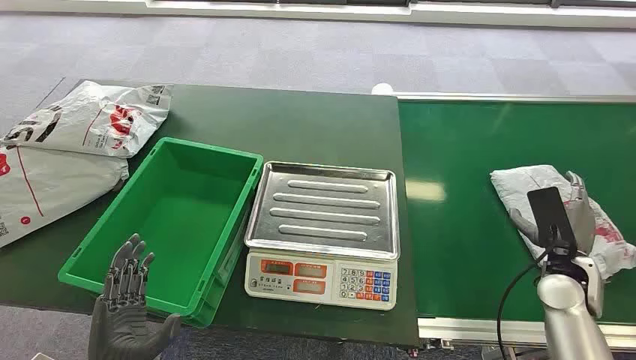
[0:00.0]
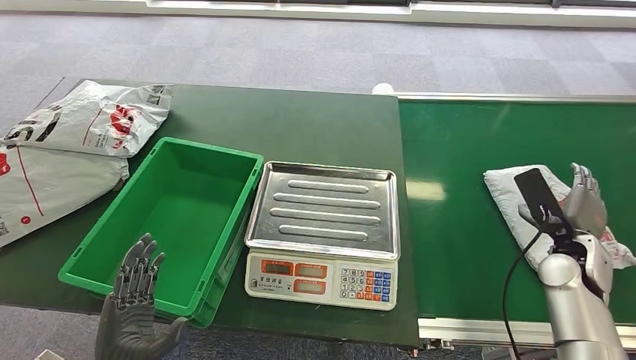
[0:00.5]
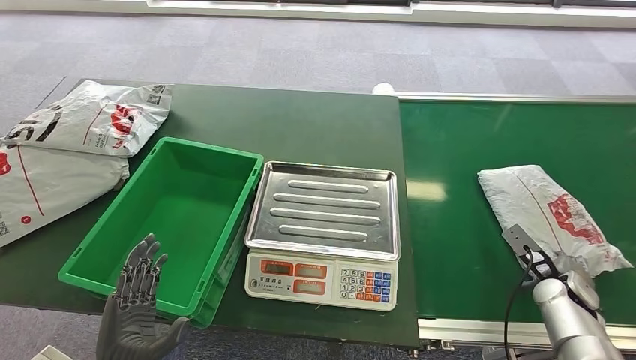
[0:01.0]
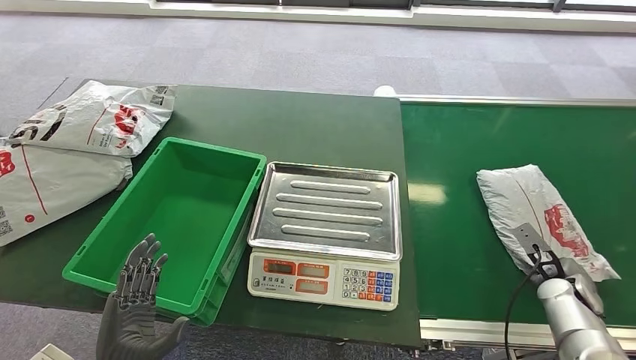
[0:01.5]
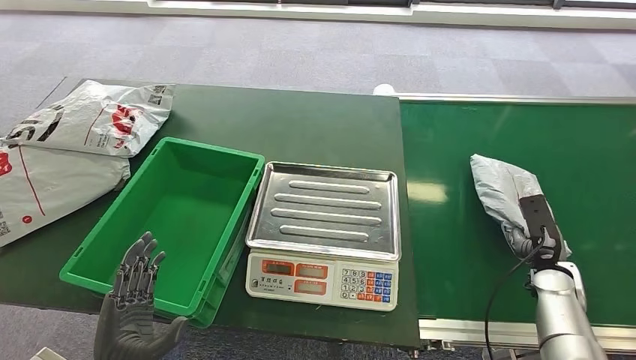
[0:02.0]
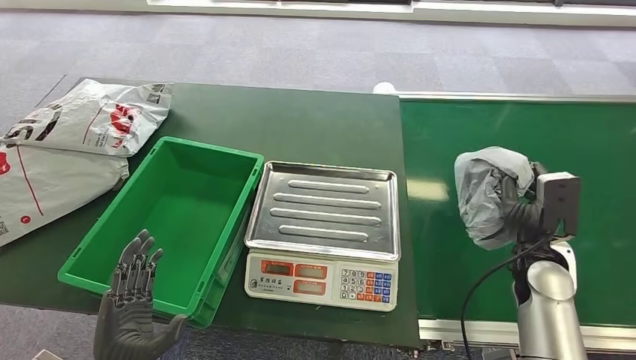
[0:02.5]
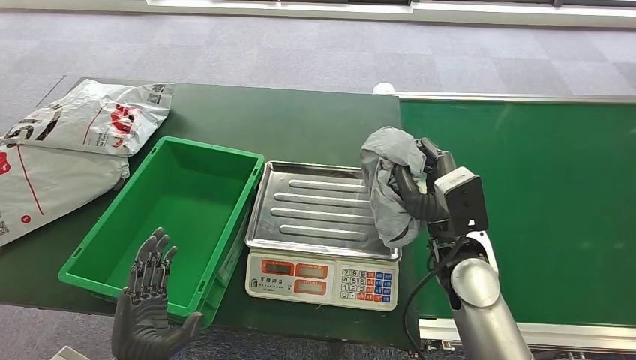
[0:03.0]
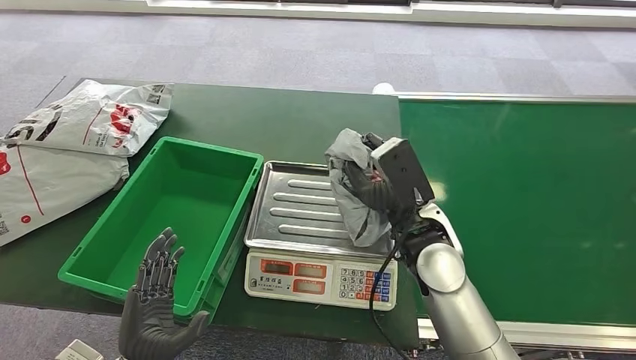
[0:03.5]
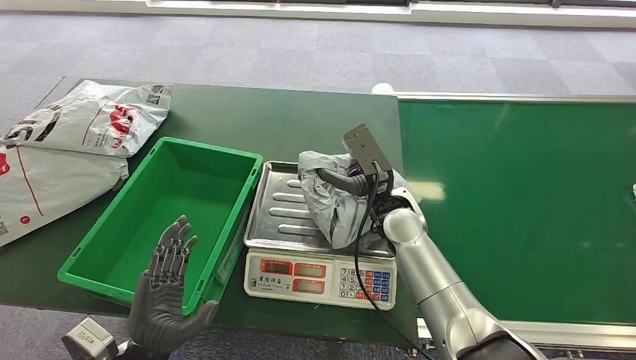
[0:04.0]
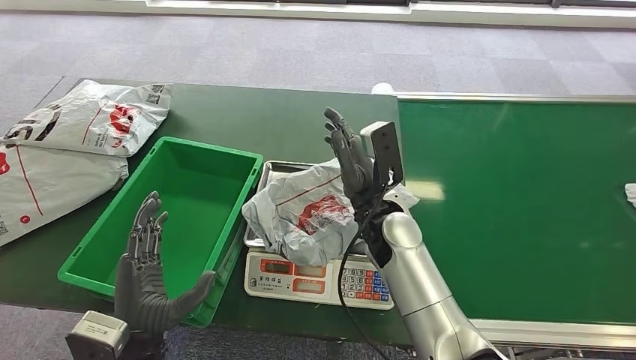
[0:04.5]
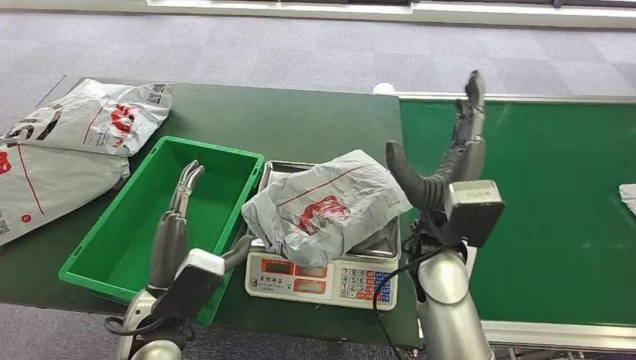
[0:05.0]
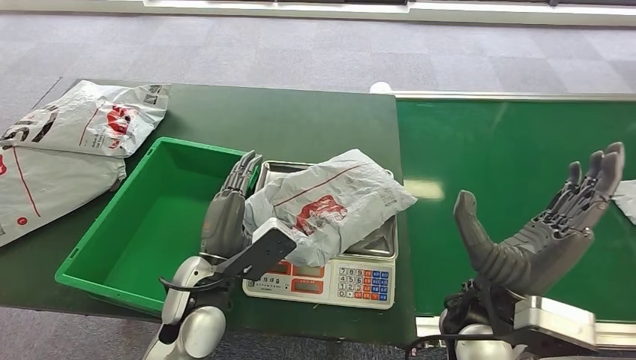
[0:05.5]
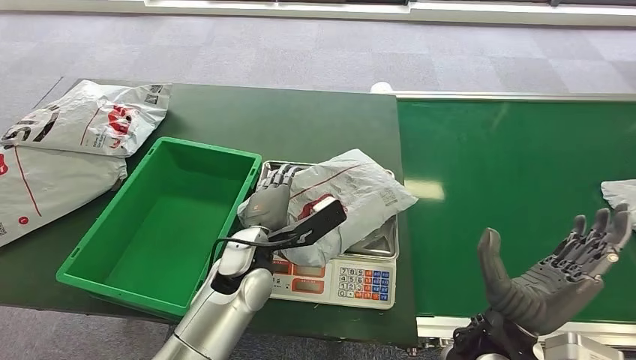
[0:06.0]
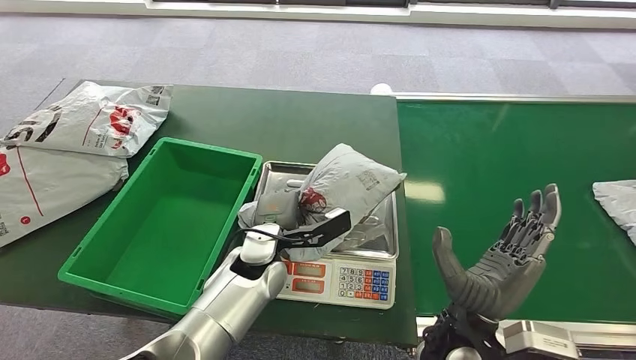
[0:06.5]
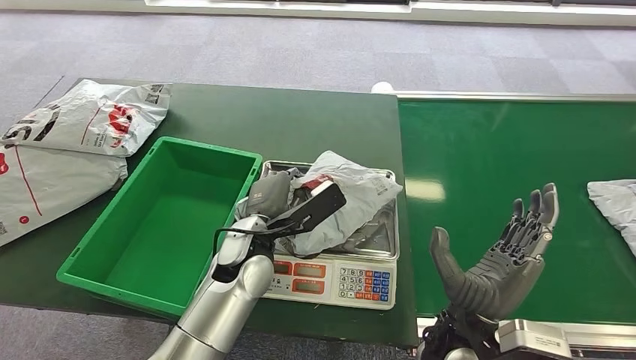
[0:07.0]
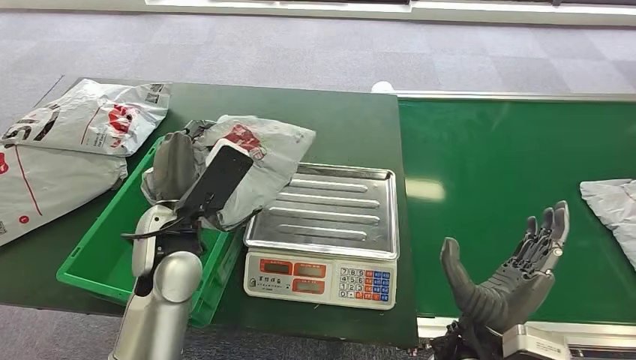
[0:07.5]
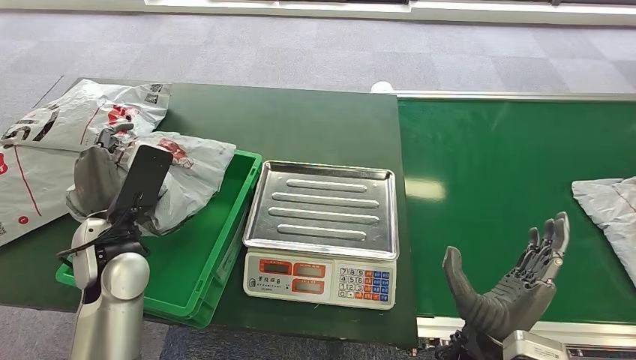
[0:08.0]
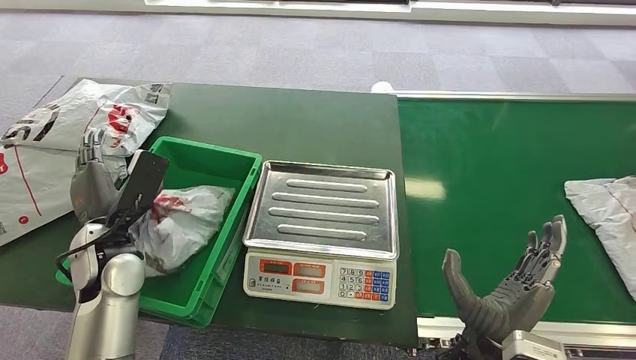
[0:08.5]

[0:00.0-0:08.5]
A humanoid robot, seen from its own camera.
Step, 0:00.0 to 0:03.0: Pick up the package from the conveyor belt.
Step, 0:03.5 to 0:04.5: Place the package onto the inbound machine.
Step, 0:05.0 to 0:07.0: Pick up the package from the inbound machine.
Step, 0:07.5 to 0:08.5: Place the package into the parcel locker.

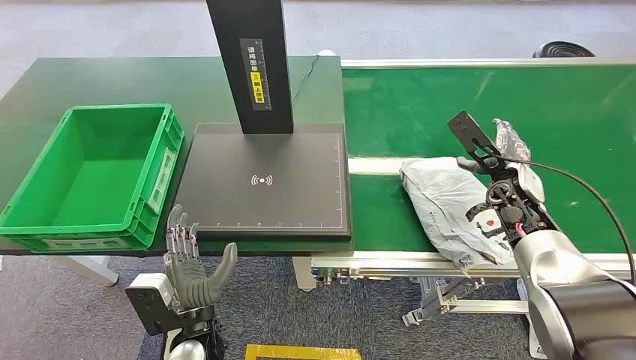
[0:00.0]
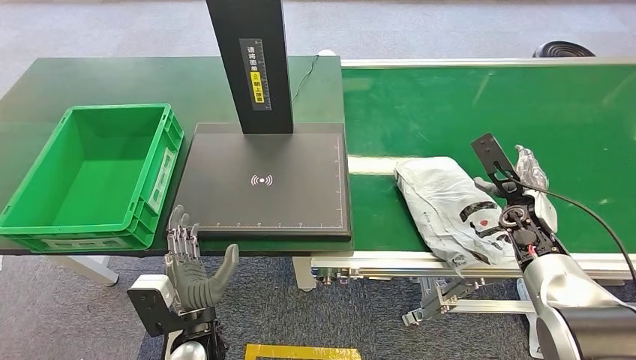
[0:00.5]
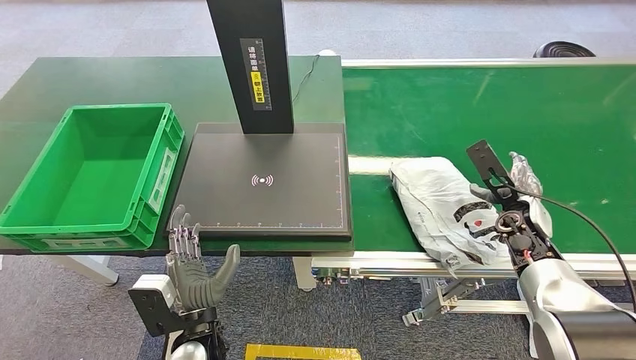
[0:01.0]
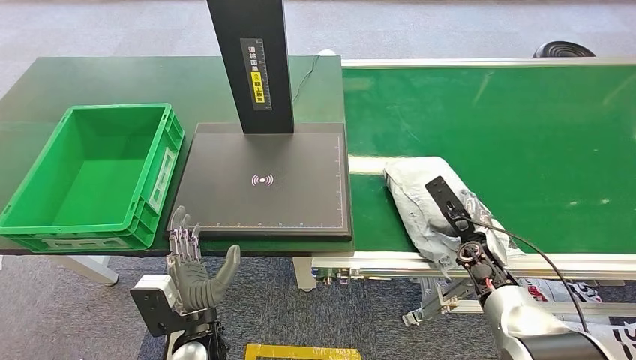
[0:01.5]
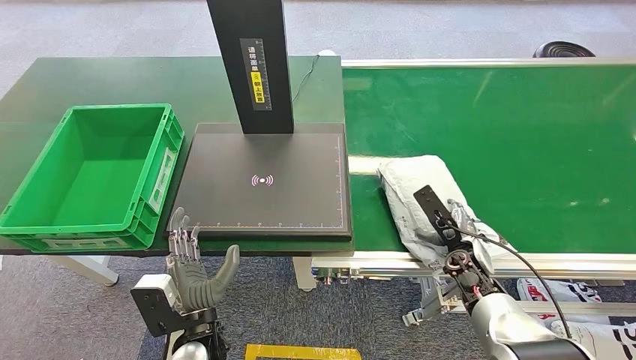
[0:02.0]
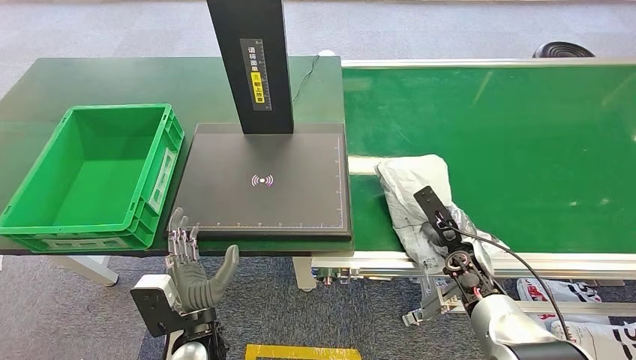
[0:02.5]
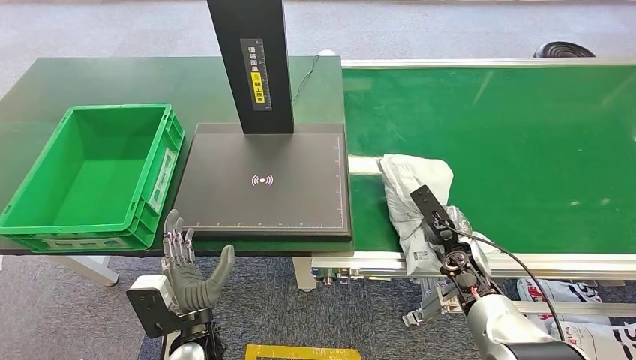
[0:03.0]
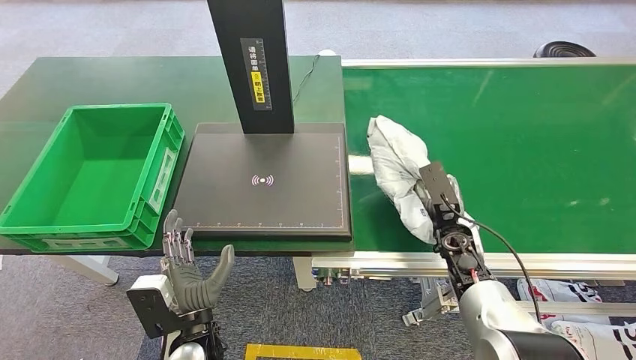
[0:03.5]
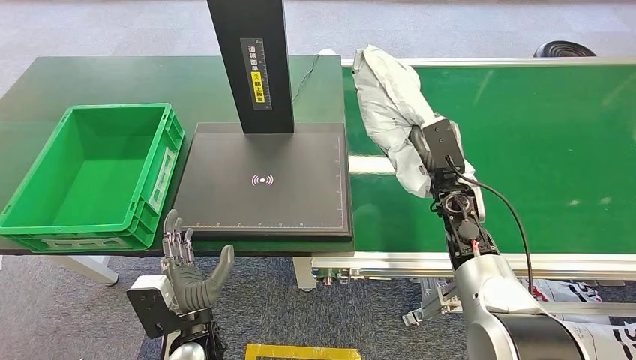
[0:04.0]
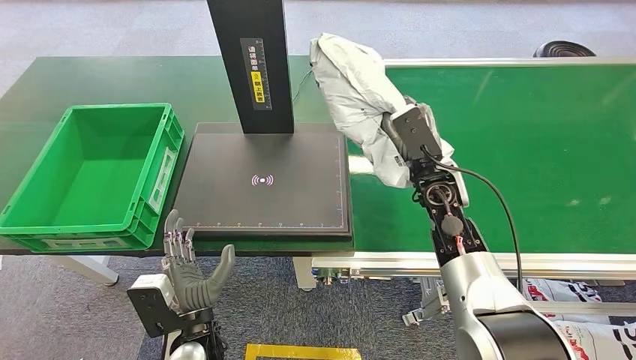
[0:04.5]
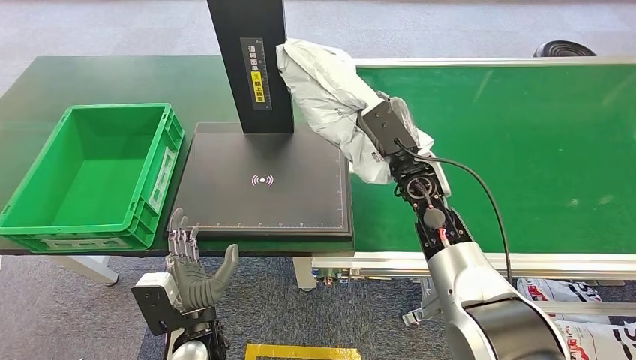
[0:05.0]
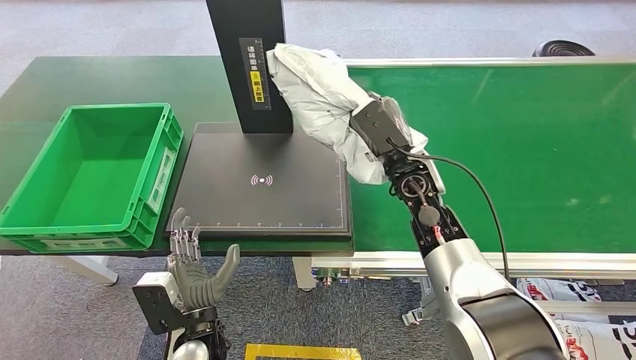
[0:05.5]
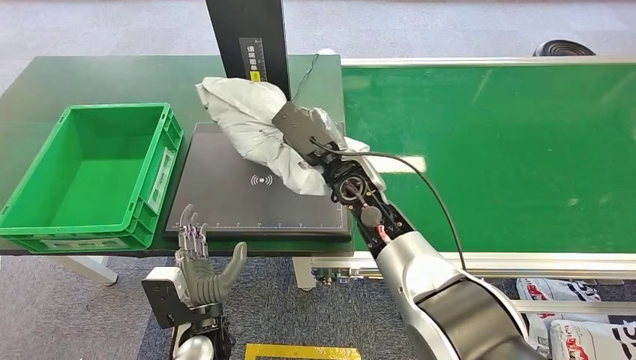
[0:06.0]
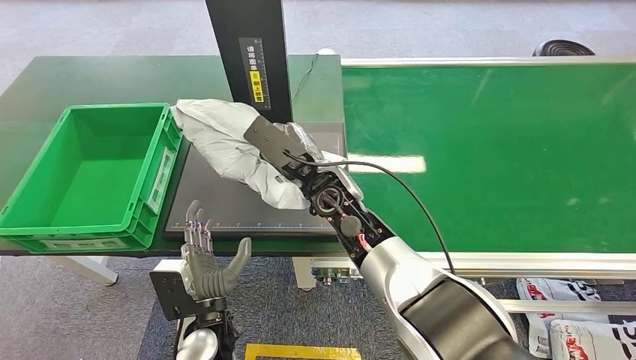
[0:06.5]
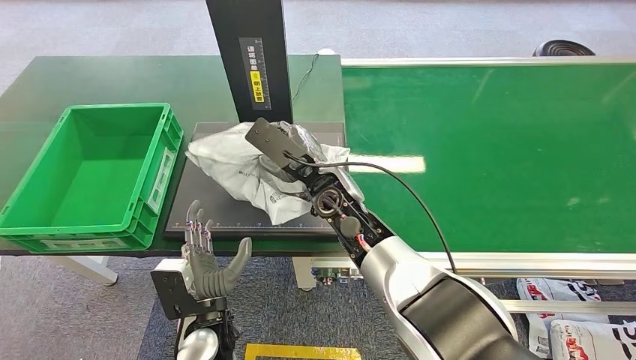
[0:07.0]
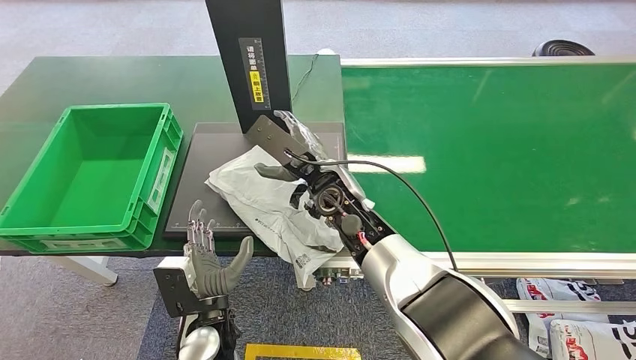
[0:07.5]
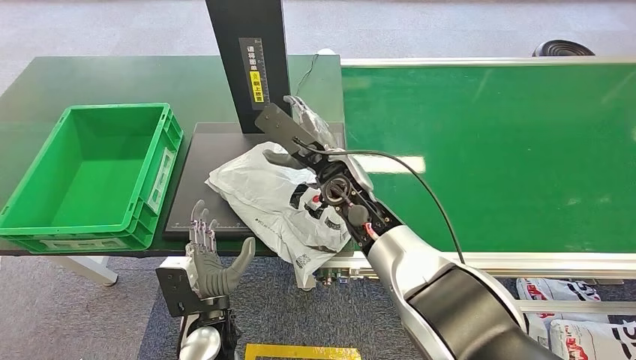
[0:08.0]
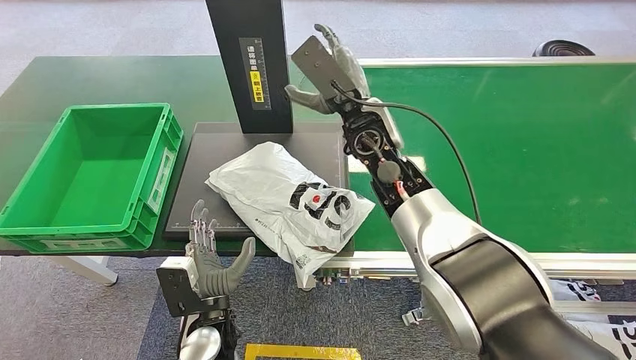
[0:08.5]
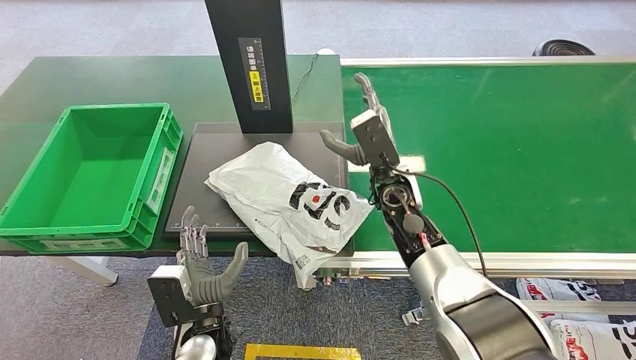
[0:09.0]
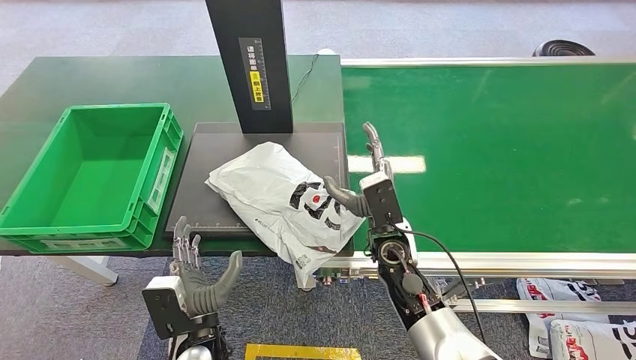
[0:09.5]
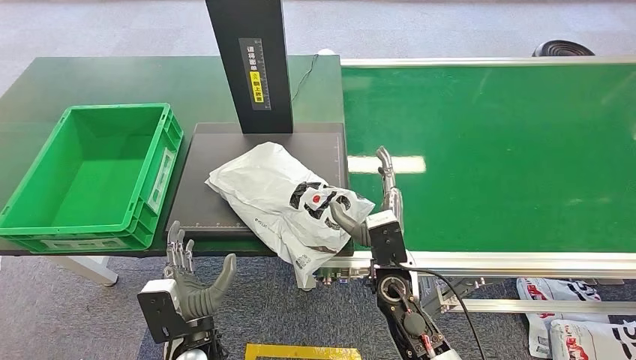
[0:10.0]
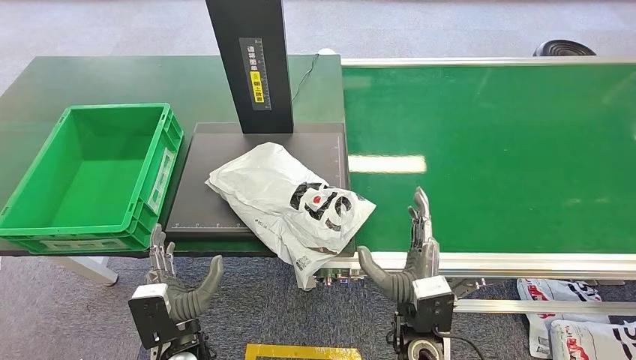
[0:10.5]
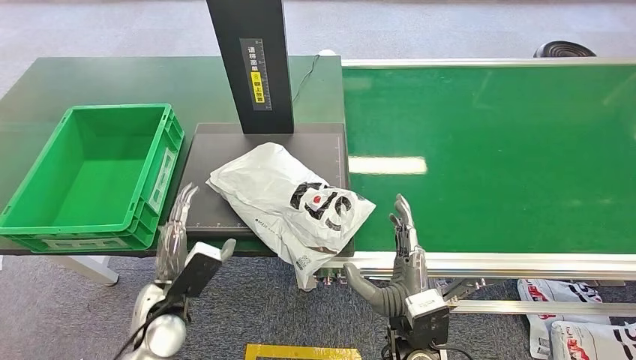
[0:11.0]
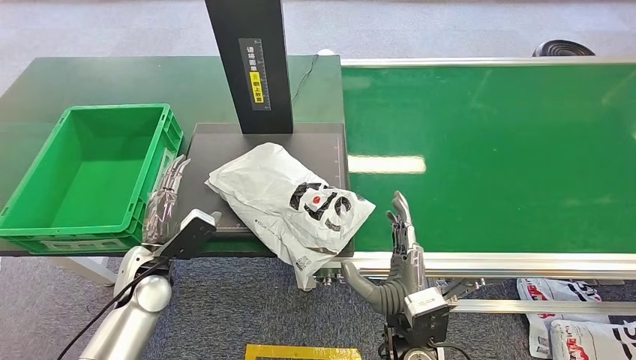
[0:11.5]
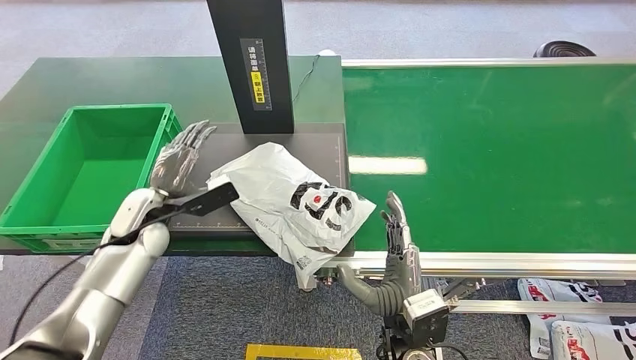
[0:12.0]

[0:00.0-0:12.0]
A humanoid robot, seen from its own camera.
Step, 0:00.0 to 0:04.0: Pick up the package from the conveyor belt.
Step, 0:04.5 to 0:08.5: Place the package onto the inbound machine.
0:02.0 to 0:04.0: The right hand moves upward, forward and to the left, roughly 15 cm.
0:06.0 to 0:08.0: The hands move only a little.
0:08.0 to 0:10.0: The right hand travels downward, backward and to the right by some 20 cm.
0:10.0 to 0:12.0: The right hand heads backward, covering some 10 cm, while the left hand is displaced forward, to the left and upward by approximately 25 cm.
